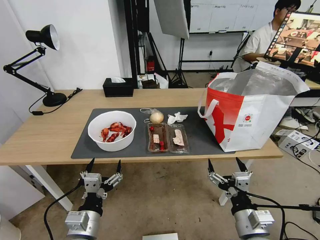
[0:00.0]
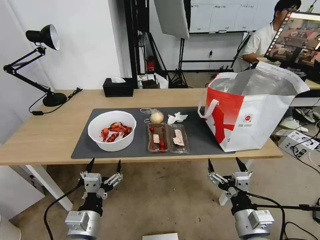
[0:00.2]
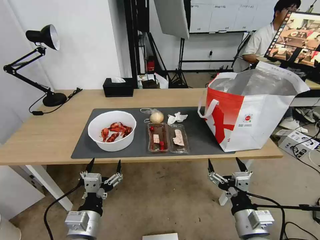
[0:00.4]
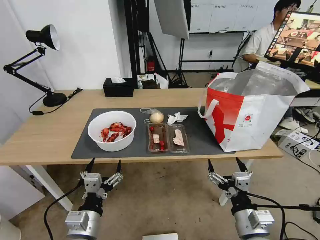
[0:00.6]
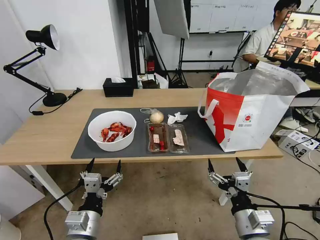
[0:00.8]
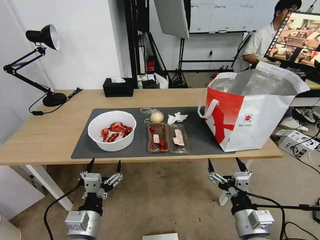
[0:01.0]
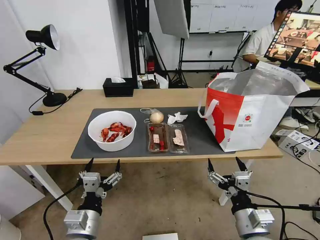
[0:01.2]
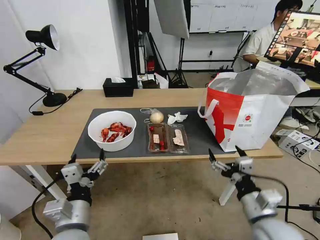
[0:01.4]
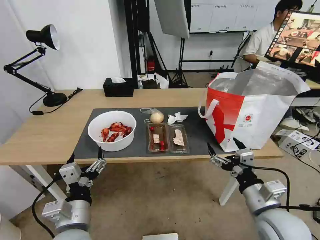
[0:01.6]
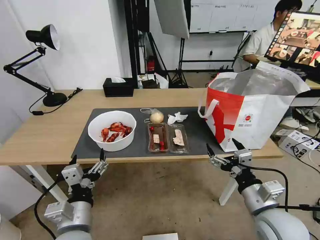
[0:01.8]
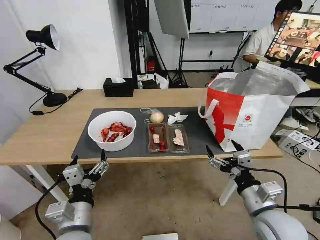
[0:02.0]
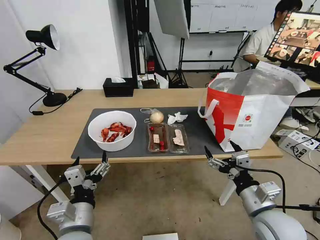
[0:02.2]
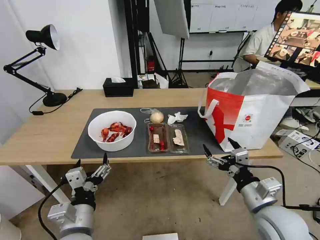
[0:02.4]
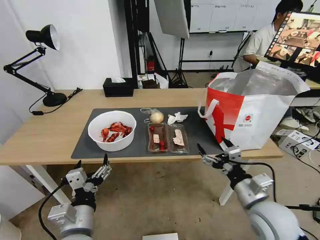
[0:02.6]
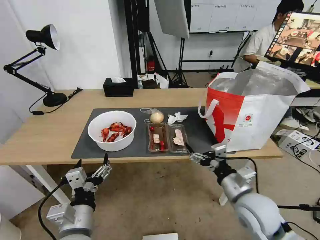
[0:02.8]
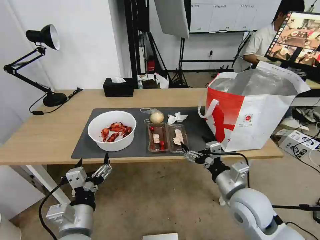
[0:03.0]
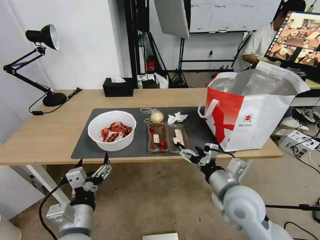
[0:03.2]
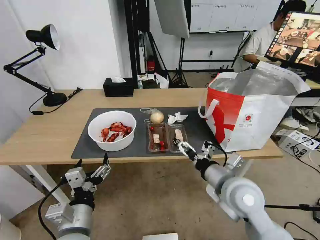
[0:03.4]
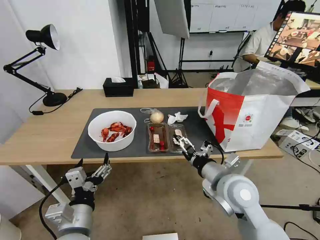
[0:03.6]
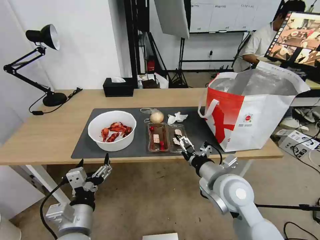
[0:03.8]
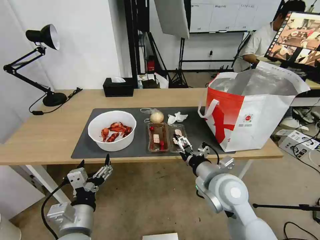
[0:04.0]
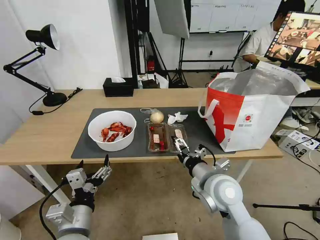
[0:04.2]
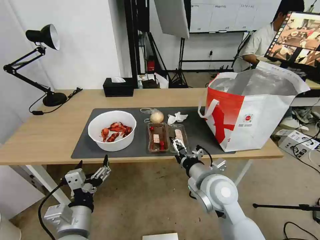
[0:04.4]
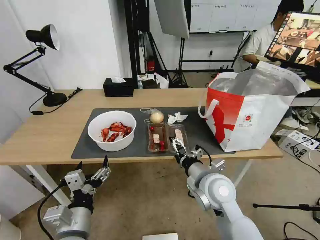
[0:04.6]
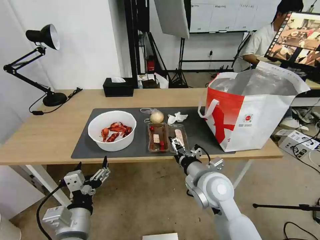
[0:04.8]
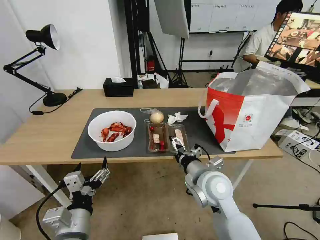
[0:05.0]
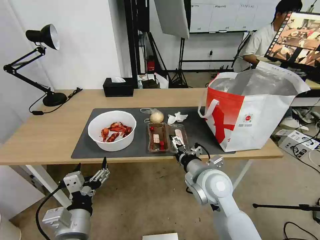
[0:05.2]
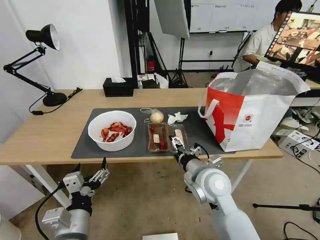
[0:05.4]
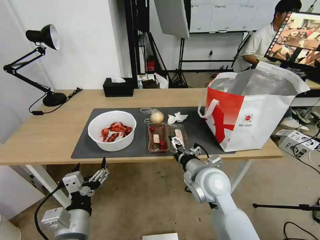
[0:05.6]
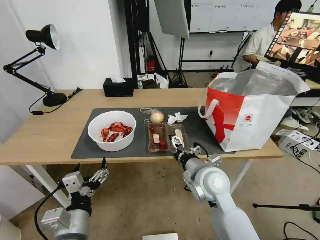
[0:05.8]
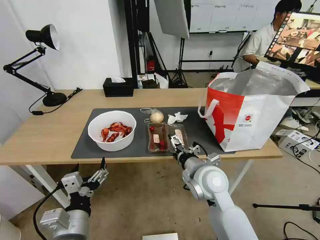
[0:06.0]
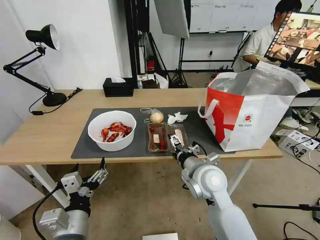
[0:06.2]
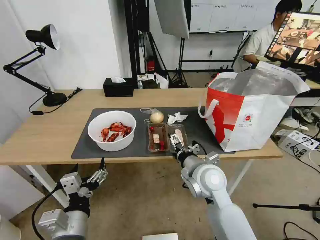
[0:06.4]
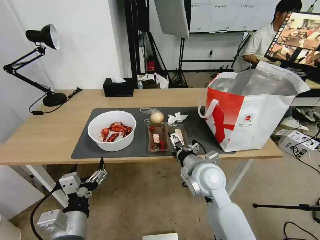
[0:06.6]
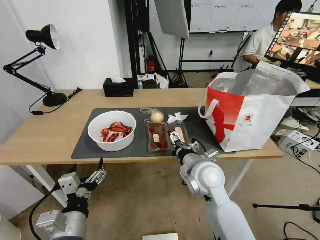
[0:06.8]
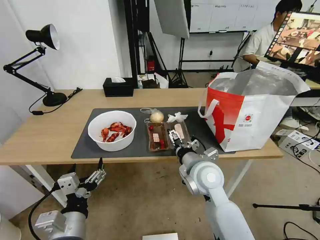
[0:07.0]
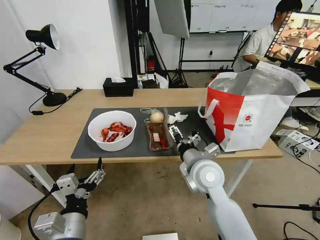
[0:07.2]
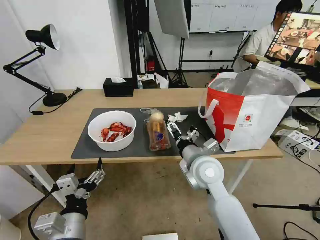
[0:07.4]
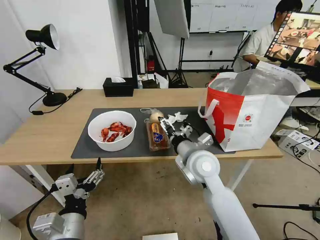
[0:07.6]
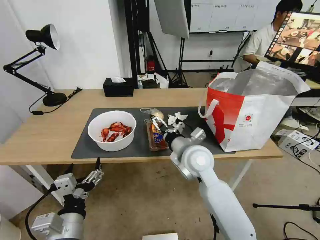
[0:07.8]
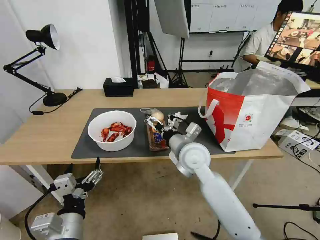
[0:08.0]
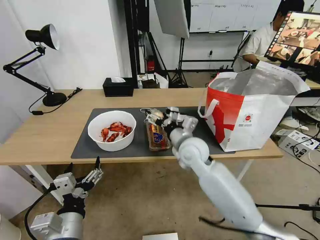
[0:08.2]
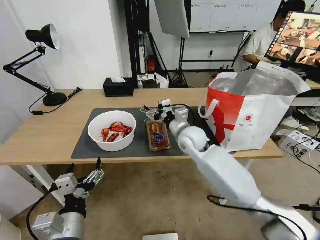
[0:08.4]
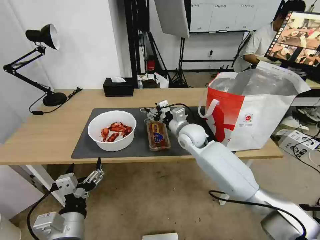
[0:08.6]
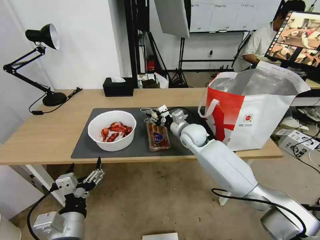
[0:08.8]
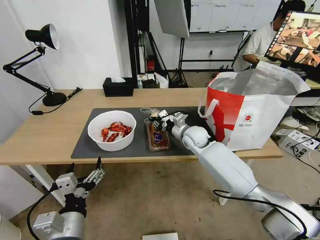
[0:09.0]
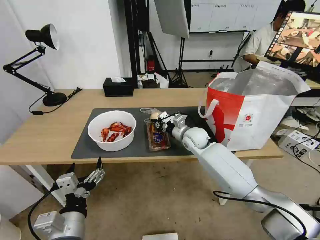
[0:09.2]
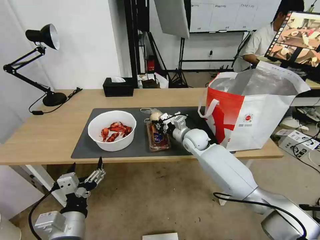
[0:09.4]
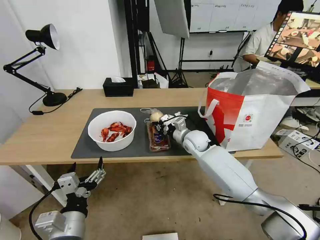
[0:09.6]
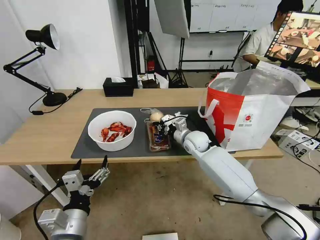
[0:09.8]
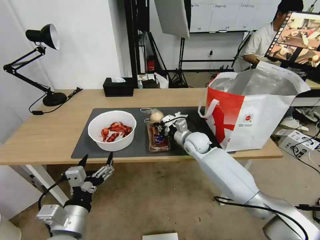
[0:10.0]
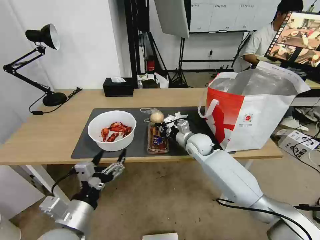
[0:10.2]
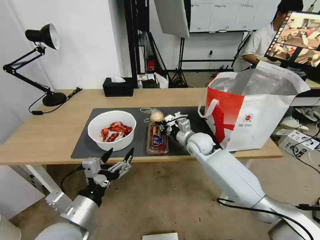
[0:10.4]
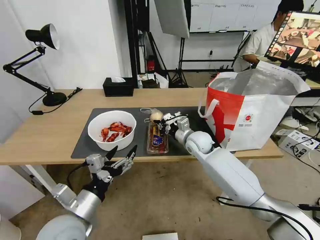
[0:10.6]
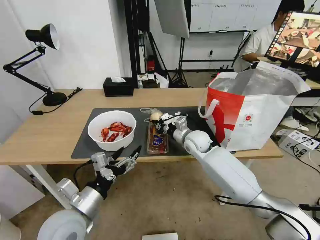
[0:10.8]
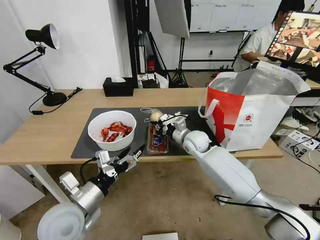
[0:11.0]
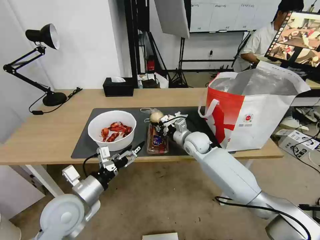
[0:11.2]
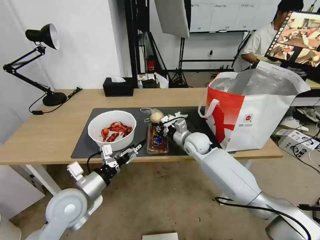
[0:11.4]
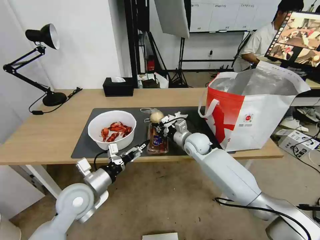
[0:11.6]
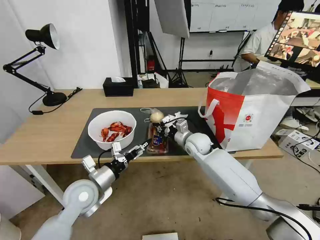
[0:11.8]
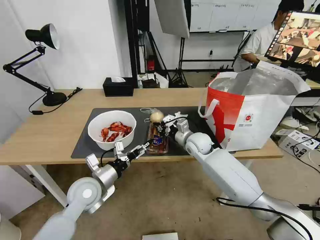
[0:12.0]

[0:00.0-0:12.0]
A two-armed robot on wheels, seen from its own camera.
Task of the whole recording: Pick up the trash from the table and place it into the takeout bag.
0:01.6 to 0:03.0: The right gripper goes some 5 cm forward.
0:03.0 to 0:04.4: The right gripper is displaced to the left by about 10 cm.
0:04.4 to 0:06.0: The grippers move only a little.
0:06.0 to 0:07.6: There are only small adjustments of the grippers.
0:07.6 to 0:09.0: The right gripper is displaced forward by roughly 15 cm, and closes up.
0:10.4 to 0:12.0: The left gripper travels forward by about 15 cm.

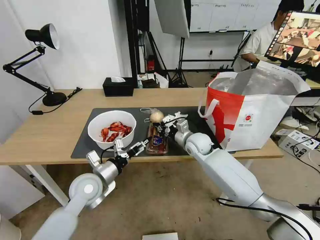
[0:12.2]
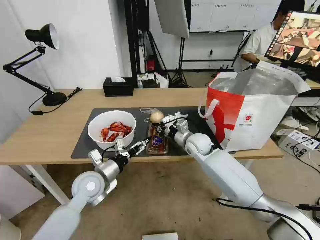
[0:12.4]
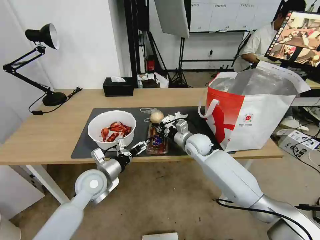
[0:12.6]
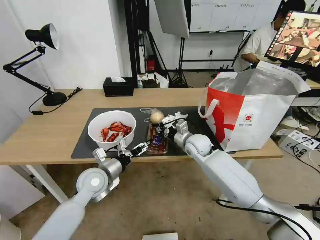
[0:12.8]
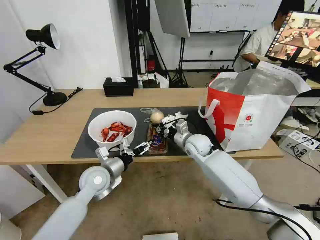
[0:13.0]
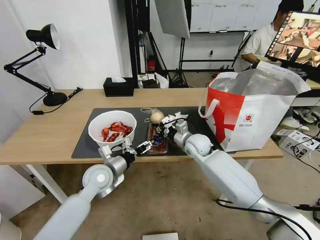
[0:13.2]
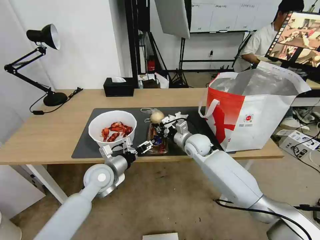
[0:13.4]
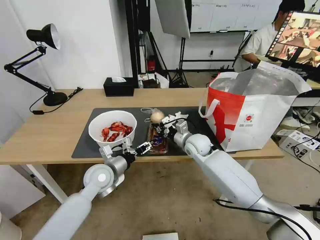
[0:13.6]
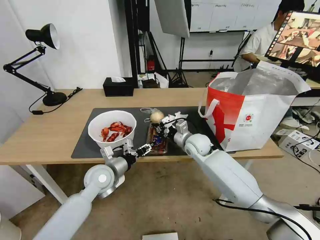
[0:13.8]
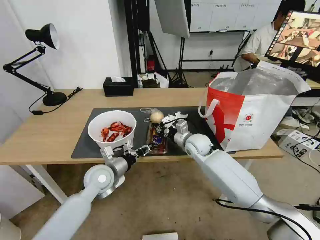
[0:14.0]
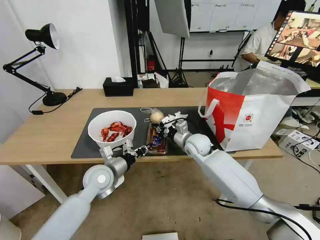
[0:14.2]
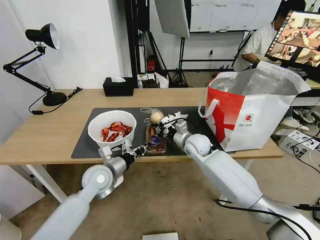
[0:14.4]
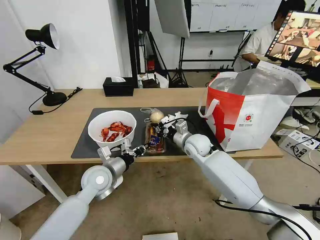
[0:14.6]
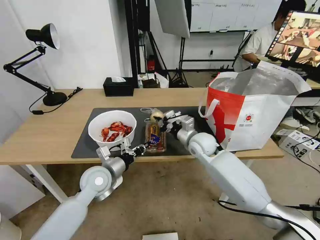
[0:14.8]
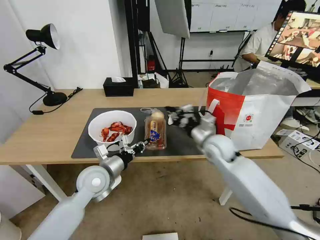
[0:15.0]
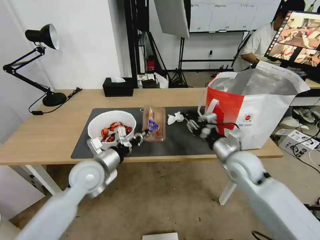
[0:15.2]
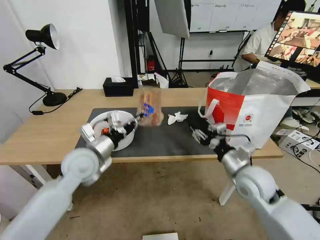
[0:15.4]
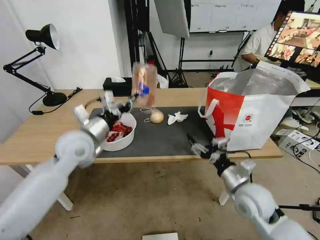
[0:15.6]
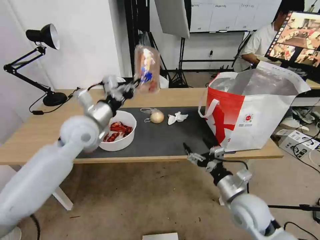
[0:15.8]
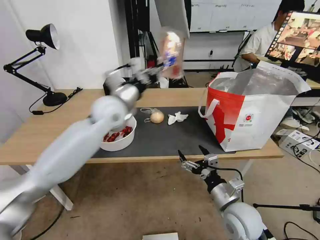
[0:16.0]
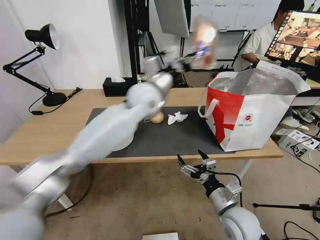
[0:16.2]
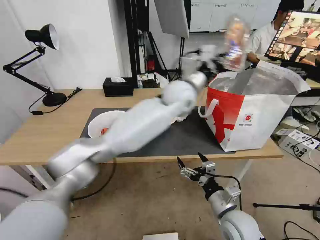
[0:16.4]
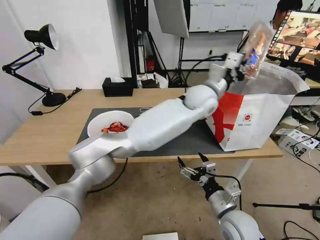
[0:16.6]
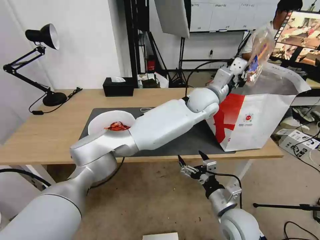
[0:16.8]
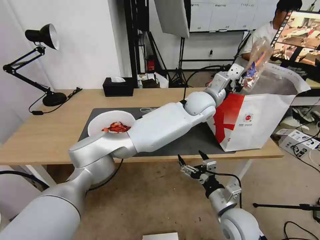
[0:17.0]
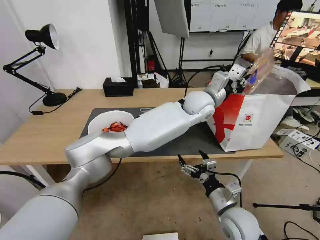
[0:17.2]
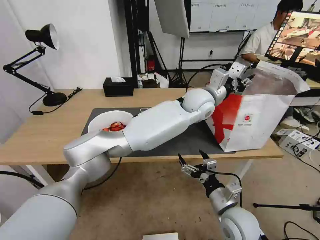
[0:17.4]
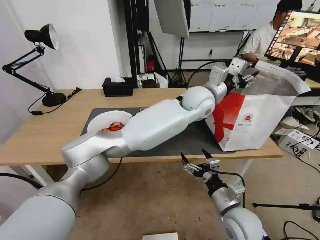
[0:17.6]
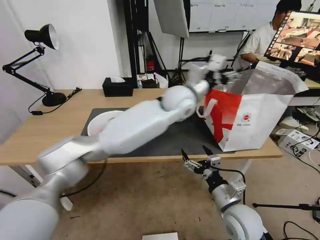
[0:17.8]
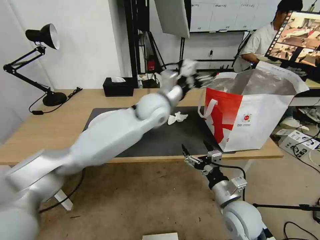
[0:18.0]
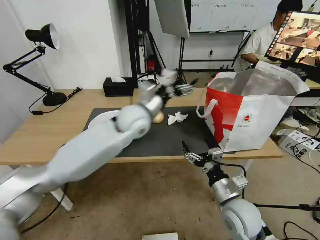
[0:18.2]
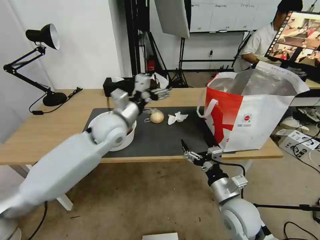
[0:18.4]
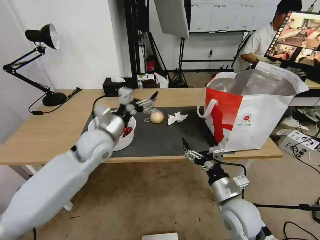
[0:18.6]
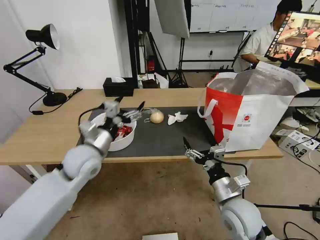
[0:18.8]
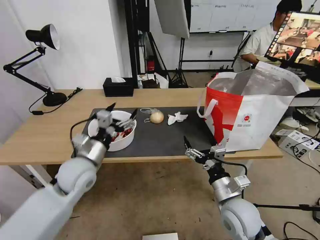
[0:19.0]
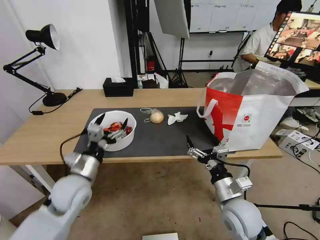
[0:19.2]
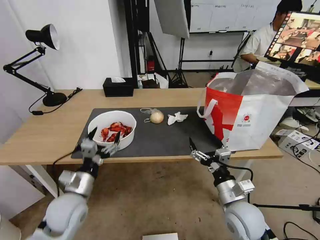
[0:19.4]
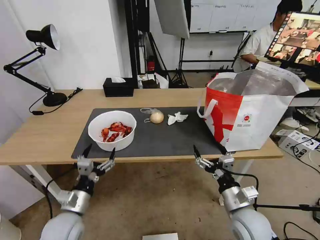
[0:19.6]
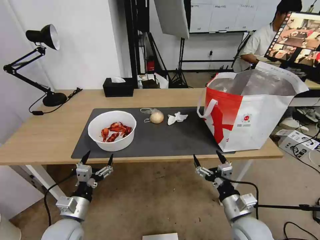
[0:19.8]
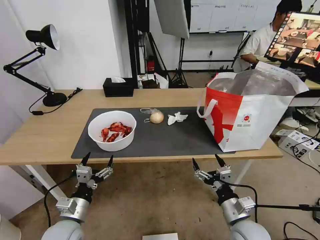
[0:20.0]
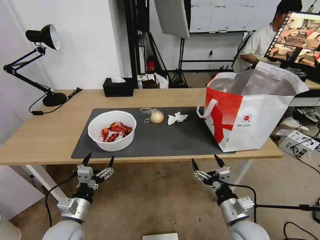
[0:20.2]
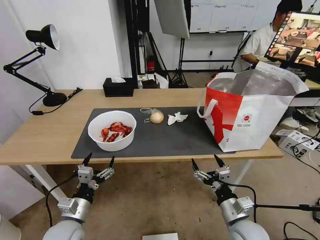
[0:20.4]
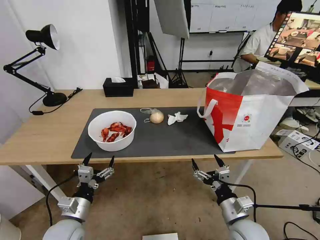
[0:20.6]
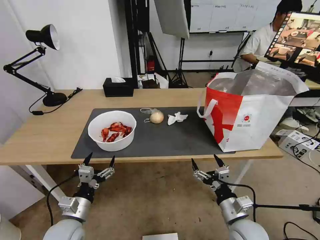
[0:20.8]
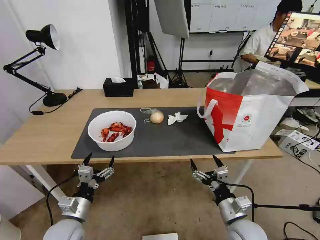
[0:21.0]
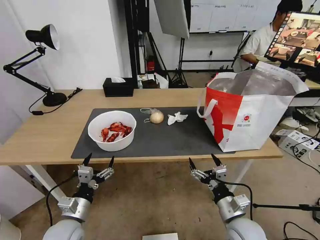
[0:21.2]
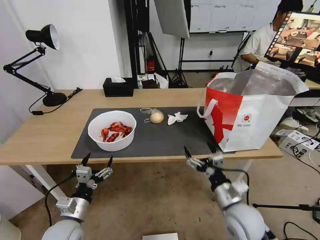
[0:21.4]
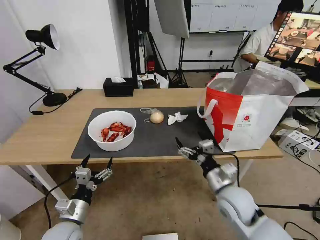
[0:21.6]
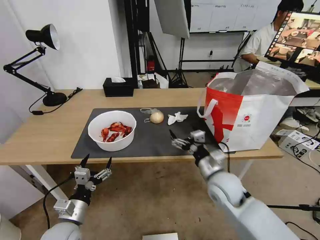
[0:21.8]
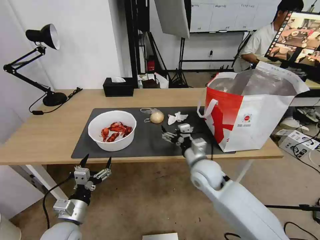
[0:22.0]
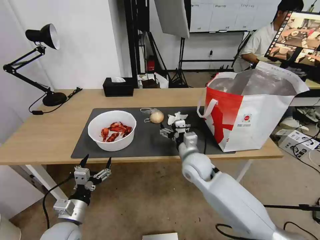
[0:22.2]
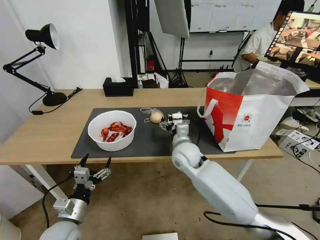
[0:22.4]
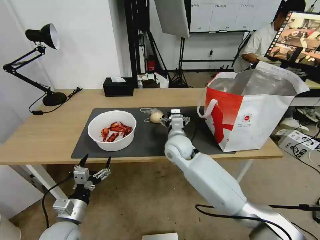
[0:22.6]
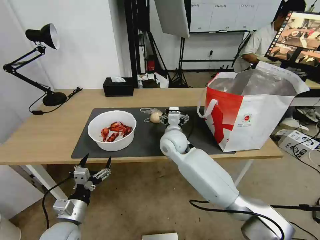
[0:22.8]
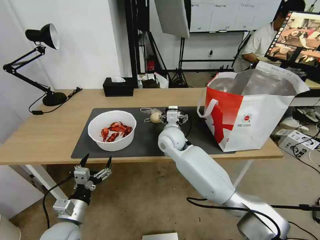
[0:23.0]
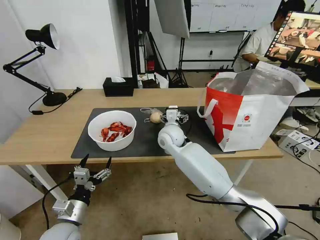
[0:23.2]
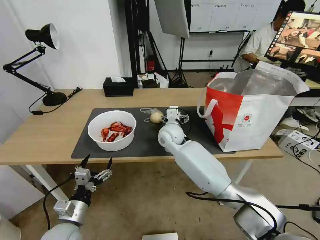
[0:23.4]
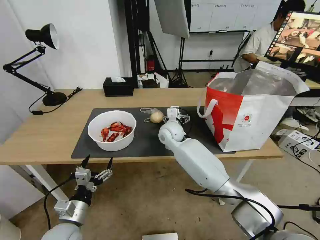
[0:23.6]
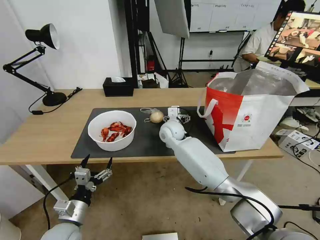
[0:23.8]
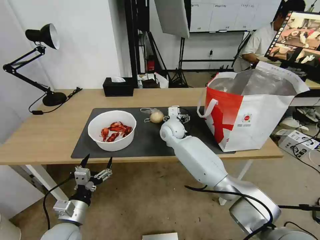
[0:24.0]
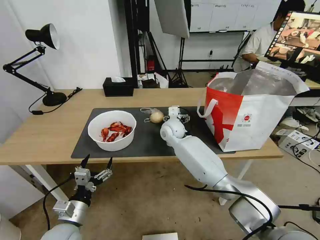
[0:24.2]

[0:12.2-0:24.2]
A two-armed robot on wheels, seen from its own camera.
Task of the whole recording: Pick up the trash from the table and place it into the takeout bag.
0:12.2 to 0:13.8: The left gripper closes.
0:13.8 to 0:15.2: The left gripper shifts about 5 cm upward, and closes. The right gripper moves backward, to the right and upward, about 15 cm.
0:15.2 to 0:16.6: The right gripper heads backward and downward, covering roughly 20 cm, and opens up. The left gripper goes about 40 cm to the right, forward and upward.
0:16.6 to 0:18.2: The left gripper travels to the left by roughly 25 cm, and opens.
0:18.2 to 0:19.8: The left gripper goes about 35 cm backward, downward and to the left. Meanwhile the right gripper changes place by approximately 5 cm.
0:19.8 to 0:21.2: The grippers make only small movements.
0:21.2 to 0:22.6: The right gripper goes approximately 30 cm forward and to the left.
0:22.6 to 0:24.2: The right gripper goes approximately 10 cm forward.
